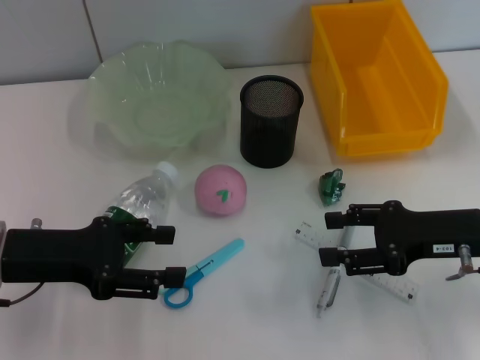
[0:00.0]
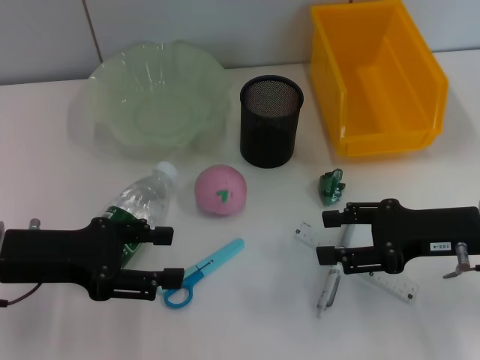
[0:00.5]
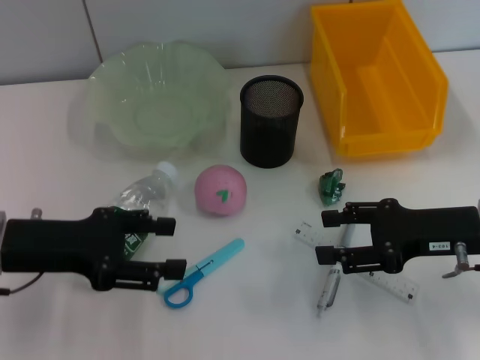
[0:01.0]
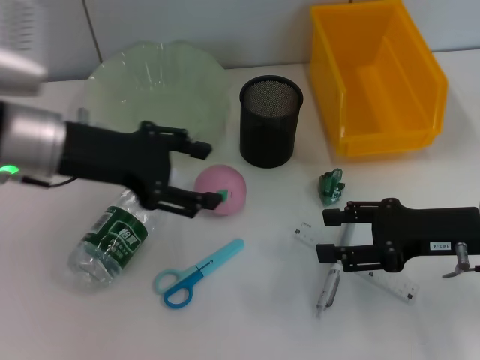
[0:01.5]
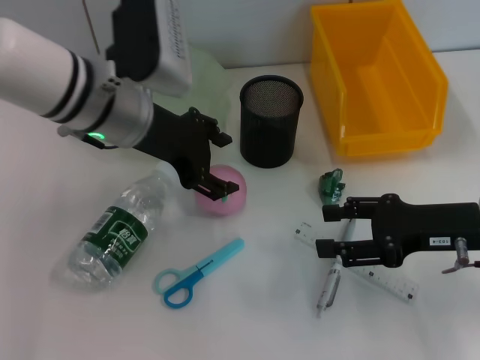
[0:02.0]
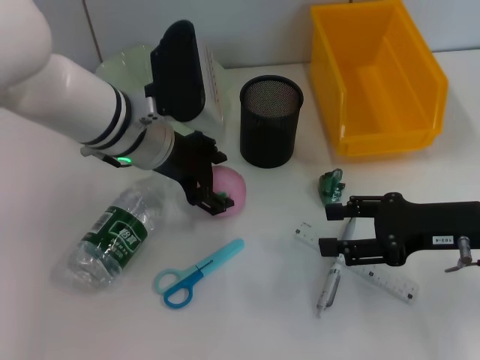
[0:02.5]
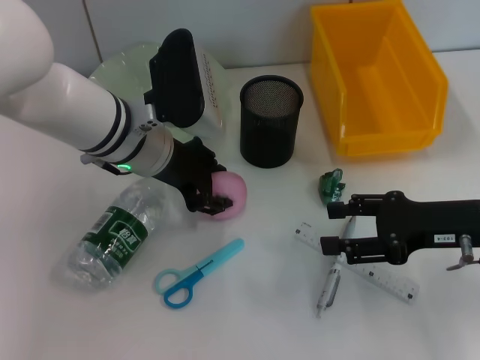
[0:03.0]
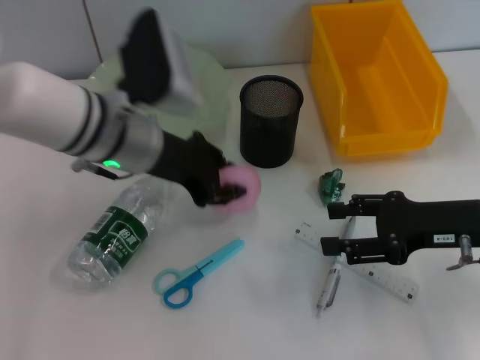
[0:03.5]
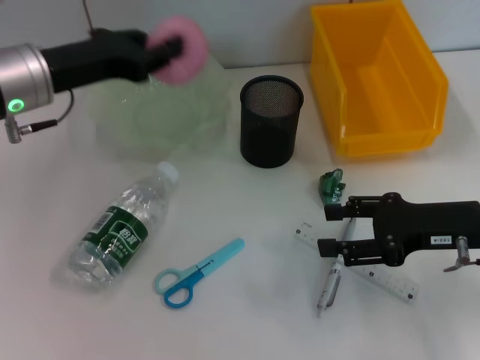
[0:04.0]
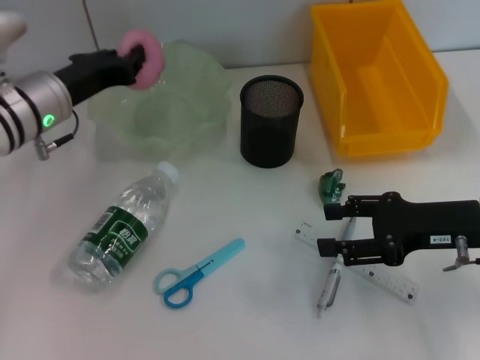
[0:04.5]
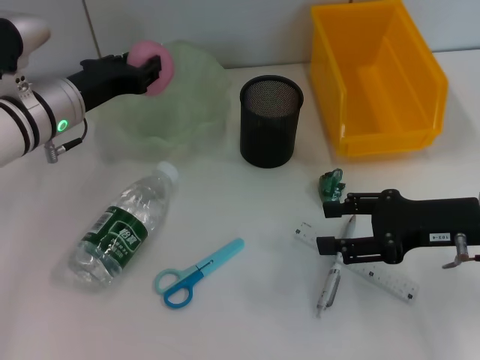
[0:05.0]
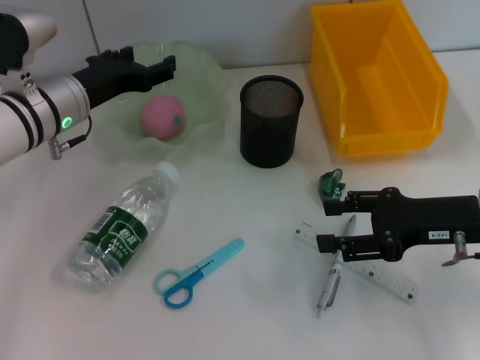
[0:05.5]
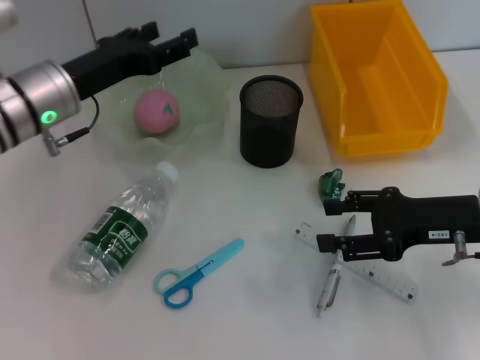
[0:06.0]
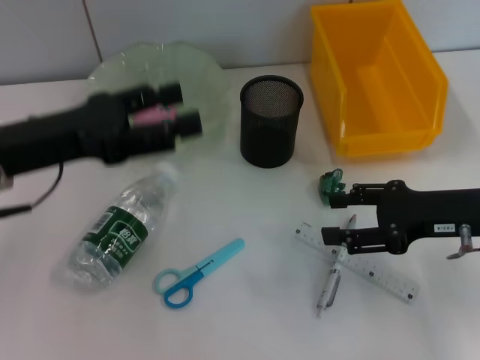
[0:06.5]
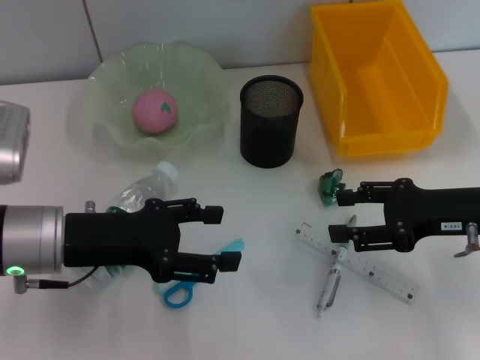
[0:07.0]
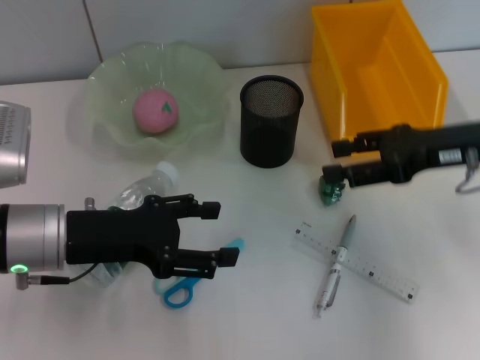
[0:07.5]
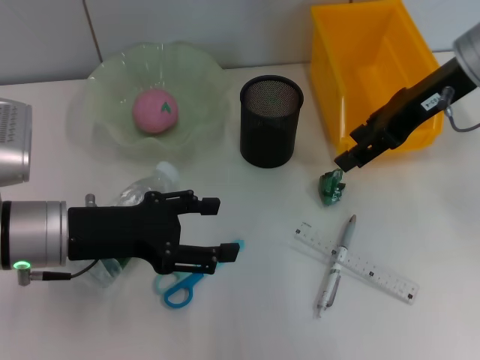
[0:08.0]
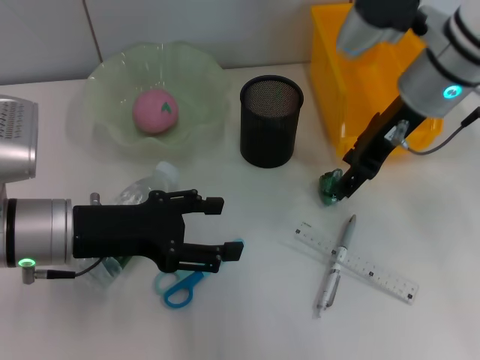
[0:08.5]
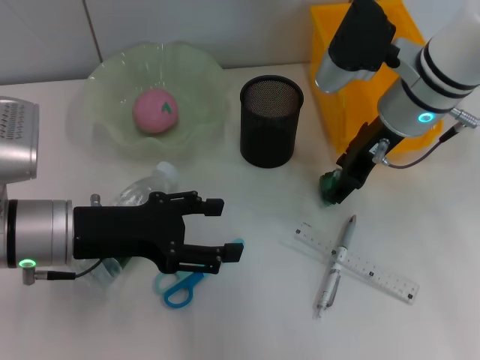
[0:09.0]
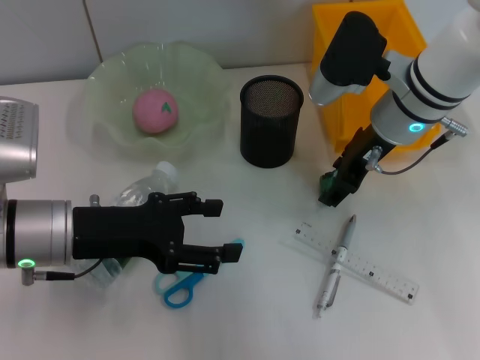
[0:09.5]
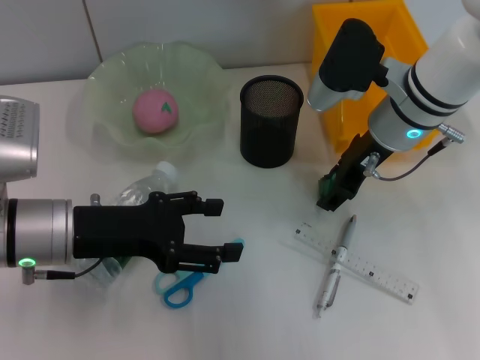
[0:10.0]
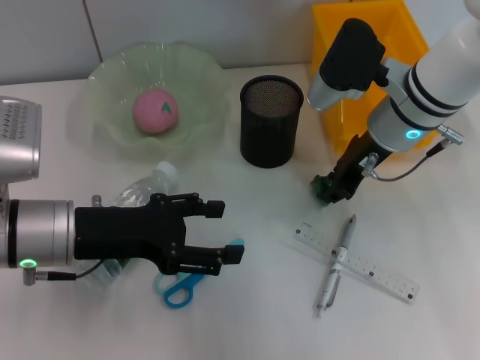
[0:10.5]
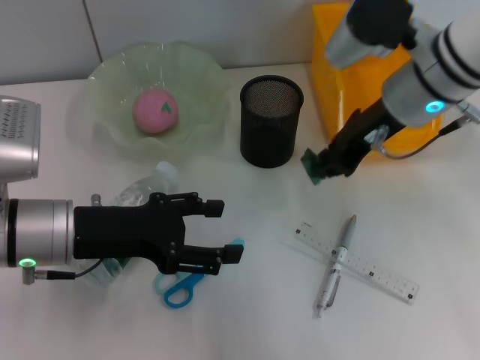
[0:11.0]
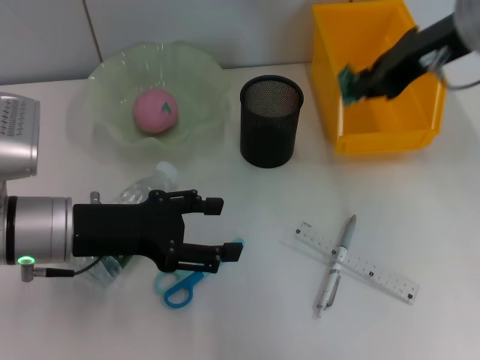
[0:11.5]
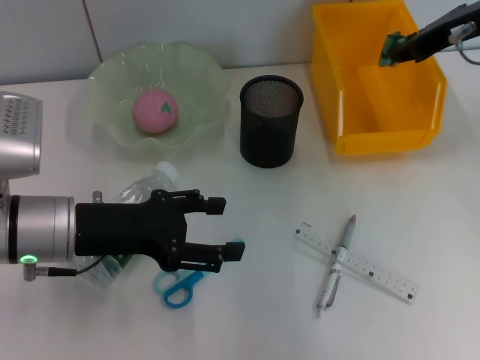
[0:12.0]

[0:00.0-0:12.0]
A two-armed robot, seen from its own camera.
Step, 0:00.0 to 0:03.0: Grab the peach with the left hand.
Step, 0:03.5 to 0:05.0: Place the peach into the fruit bowl with the left hand.
Step, 0:05.5 to 0:10.0: Grab the plastic with the right hand.
0:00.0 to 0:02.0: The left gripper moves to the right, forward and upward, about 20 cm.
0:02.0 to 0:04.0: The left gripper shifts about 10 cm to the left, and closes its fingers.
0:04.0 to 0:06.0: The left gripper opens up.
0:06.0 to 0:08.0: The right gripper shifts about 15 cm upward and forward; the left gripper is displaced backward by about 10 cm.
0:08.0 to 0:10.0: The right gripper is displaced downward and to the left by roughly 10 cm.
0:10.0 to 0:12.0: The right gripper is displaced to the right and upward by about 15 cm, and closes its fingers.

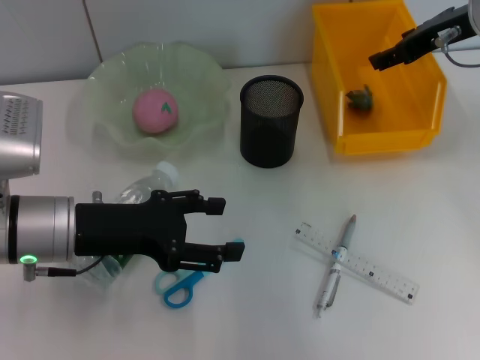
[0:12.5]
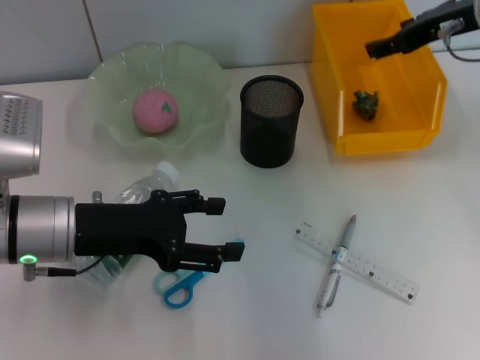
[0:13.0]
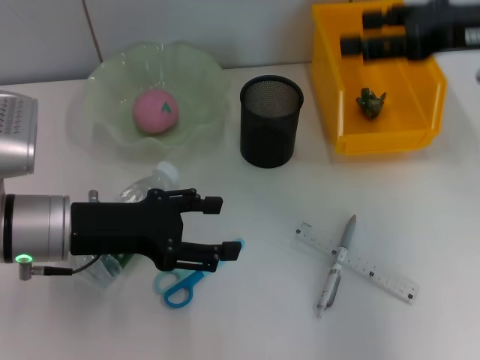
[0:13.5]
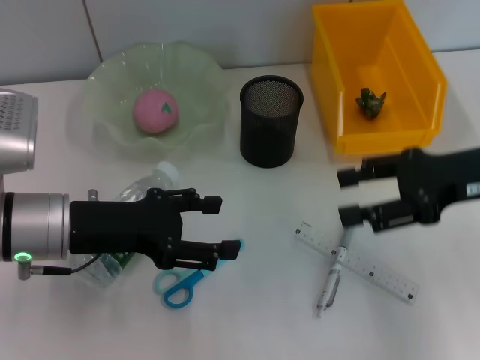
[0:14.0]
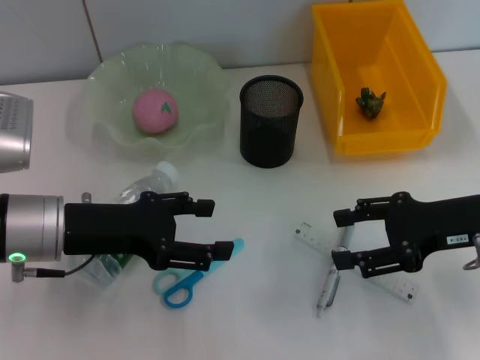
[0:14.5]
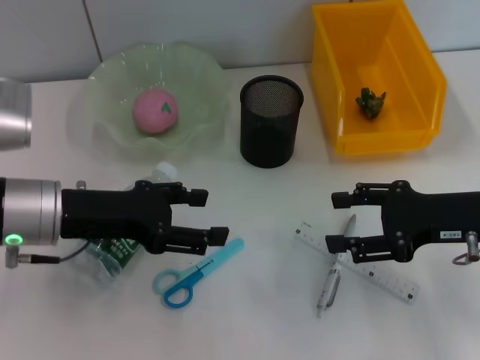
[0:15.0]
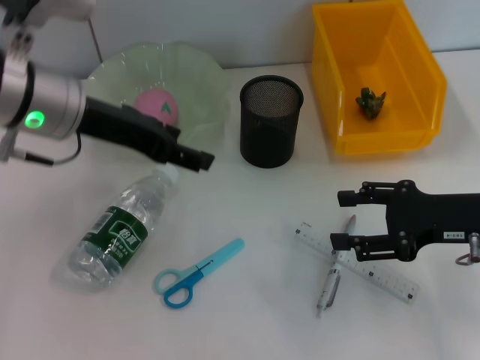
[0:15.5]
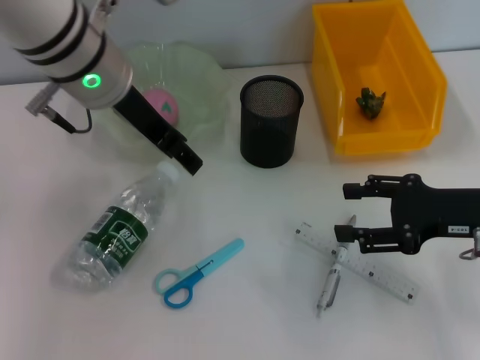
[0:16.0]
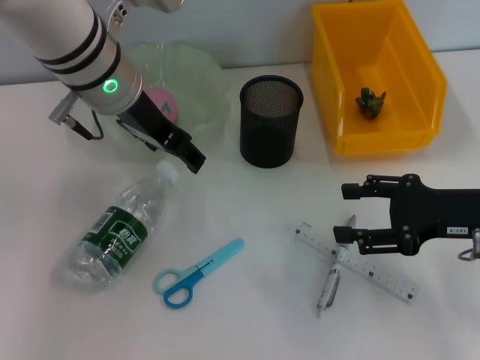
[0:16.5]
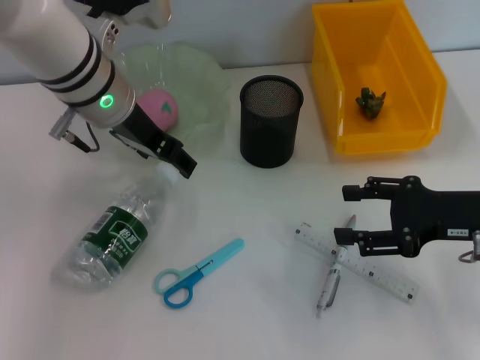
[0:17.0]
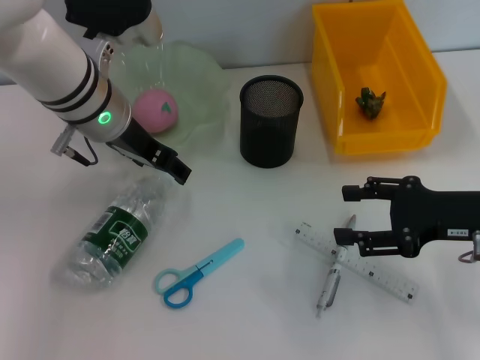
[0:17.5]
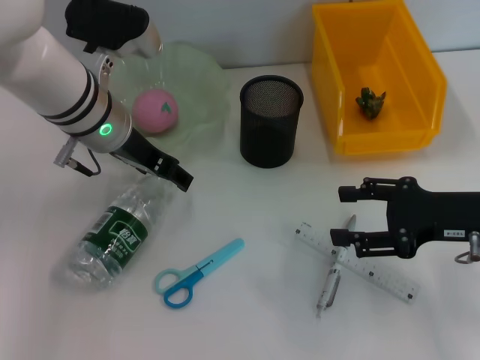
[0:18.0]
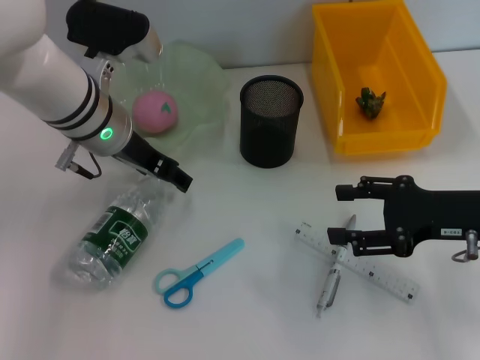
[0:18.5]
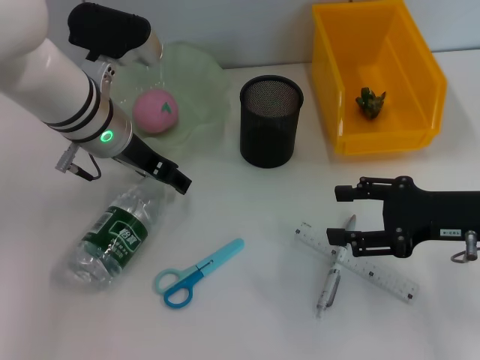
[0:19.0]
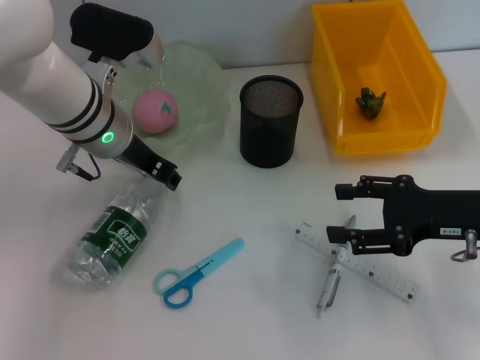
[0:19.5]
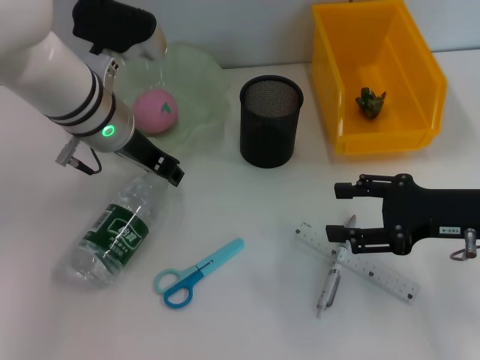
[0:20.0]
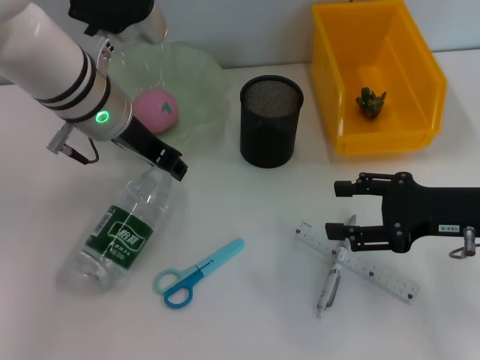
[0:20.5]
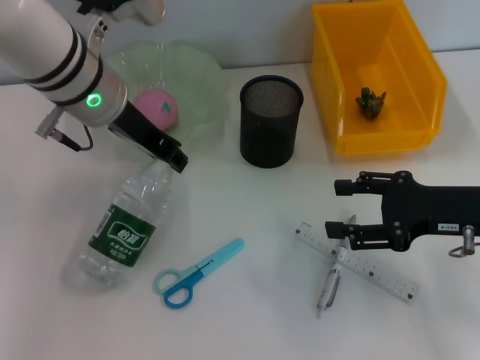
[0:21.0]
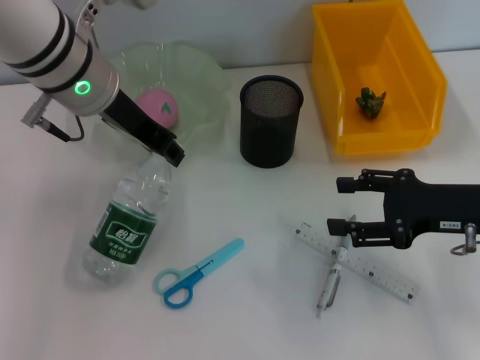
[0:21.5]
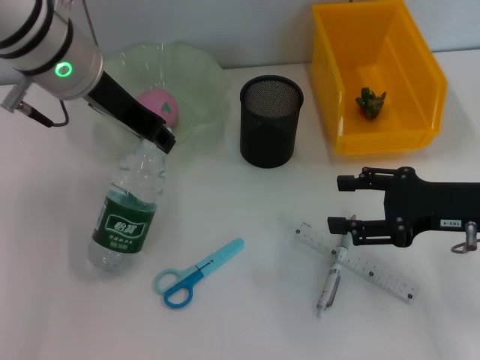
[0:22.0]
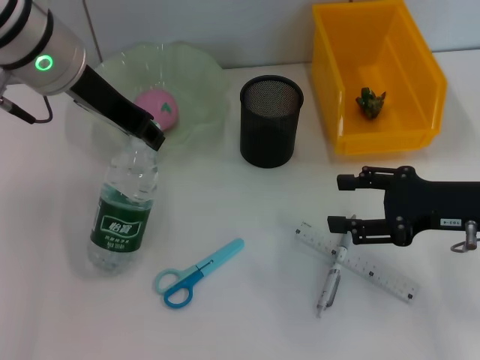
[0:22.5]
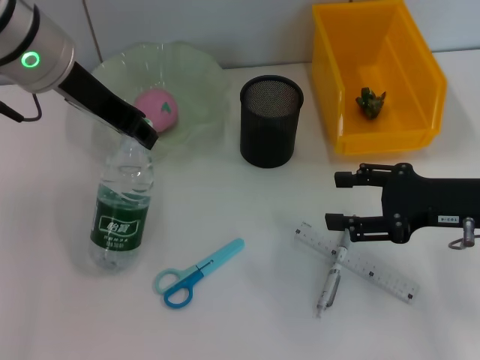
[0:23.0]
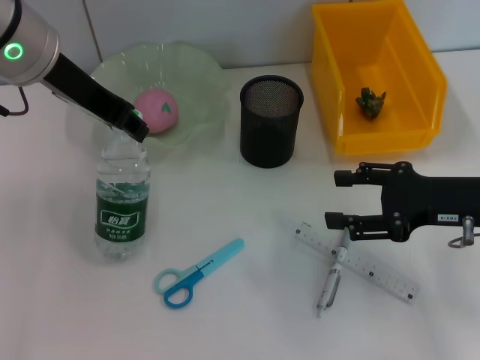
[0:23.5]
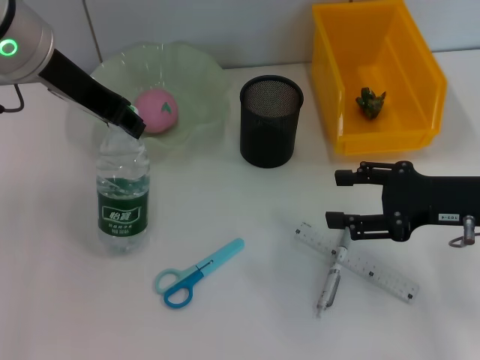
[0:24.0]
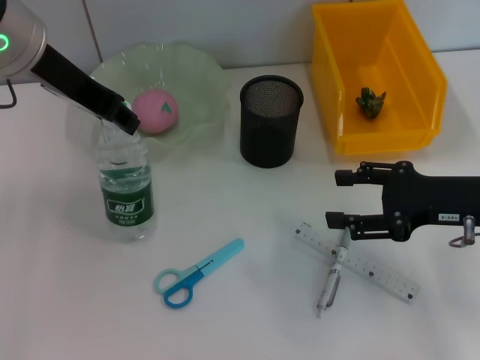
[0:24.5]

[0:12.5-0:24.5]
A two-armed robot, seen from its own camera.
Step, 0:13.0 to 0:19.5: Grab the water bottle with the left hand.
0:12.5 to 0:14.5: The right gripper travels backward and downward by approximately 20 cm.
0:14.5 to 0:16.5: The left gripper goes approximately 20 cm upward, forward and to the right.
0:16.5 to 0:18.5: The left gripper is displaced downward by about 5 cm.
0:18.5 to 0:20.5: The left gripper closes.
0:20.5 to 0:22.5: The left gripper is displaced upward by some 5 cm.
0:22.5 to 0:24.5: The grippers make only small movements.

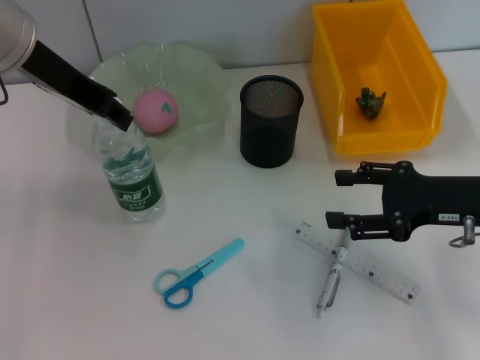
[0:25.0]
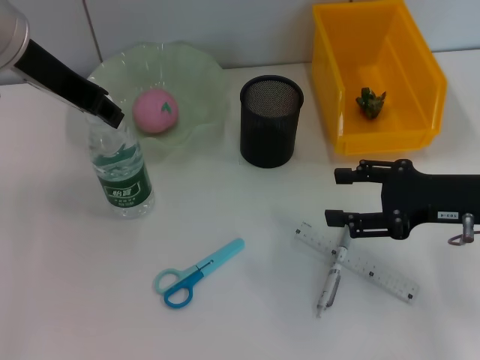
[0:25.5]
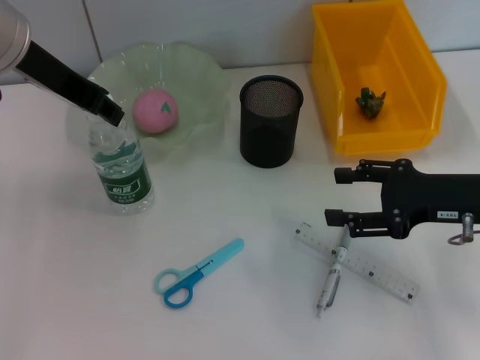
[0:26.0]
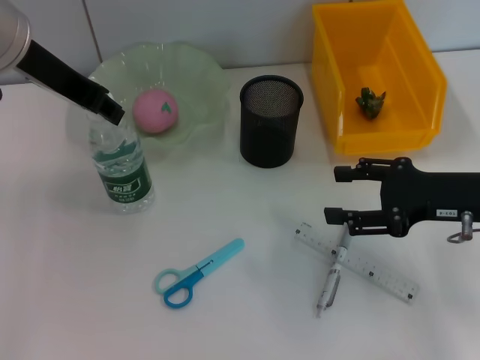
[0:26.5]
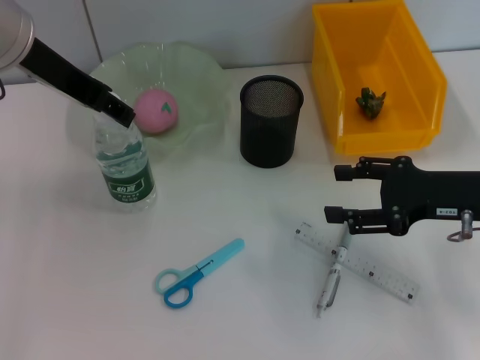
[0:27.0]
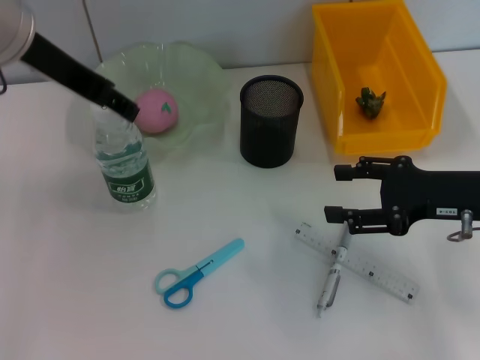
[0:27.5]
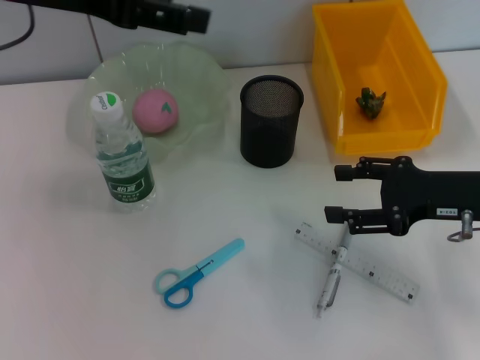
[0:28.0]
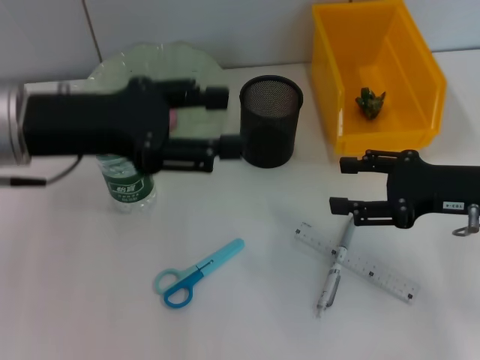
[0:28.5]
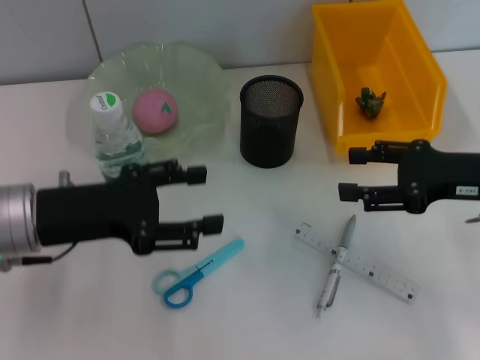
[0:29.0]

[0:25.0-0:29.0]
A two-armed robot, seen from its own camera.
Step, 0:25.0 to 0:27.5: Place the water bottle on the table with the left hand.
0:25.0 to 0:27.0: The left gripper opens.
0:27.0 to 0:29.0: The left gripper goes some 15 cm downward and backward.
